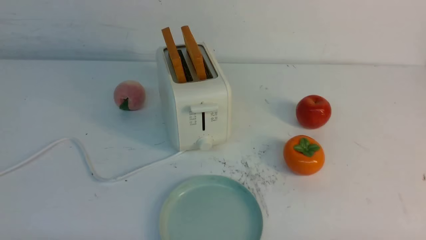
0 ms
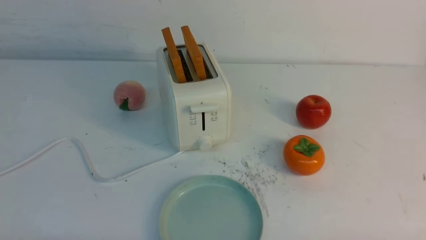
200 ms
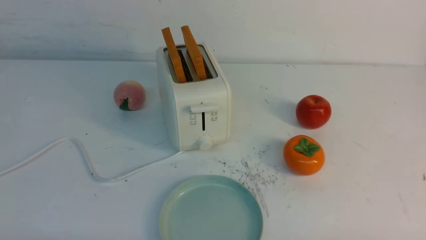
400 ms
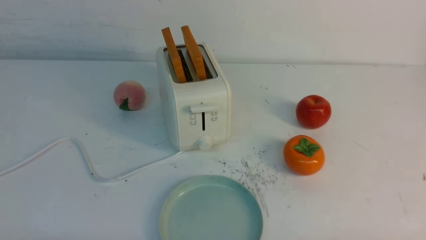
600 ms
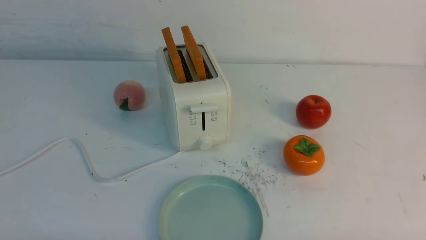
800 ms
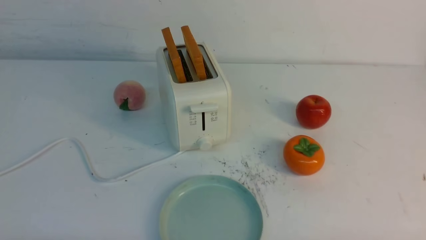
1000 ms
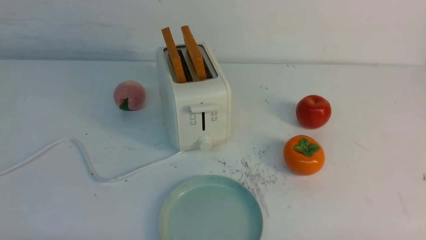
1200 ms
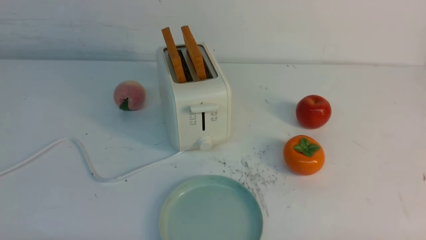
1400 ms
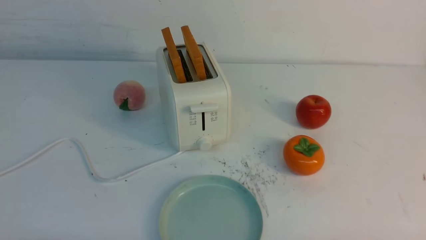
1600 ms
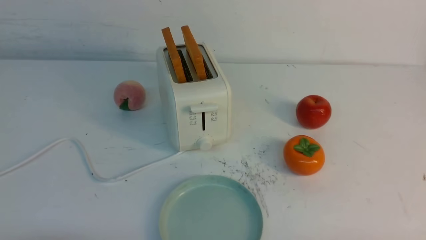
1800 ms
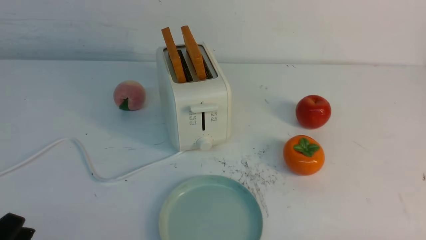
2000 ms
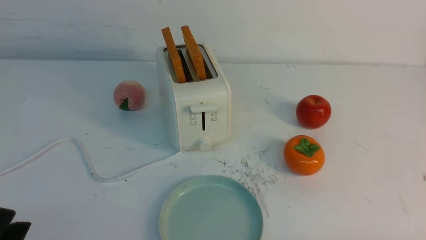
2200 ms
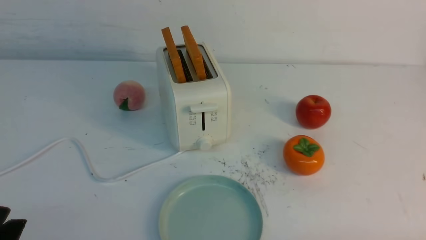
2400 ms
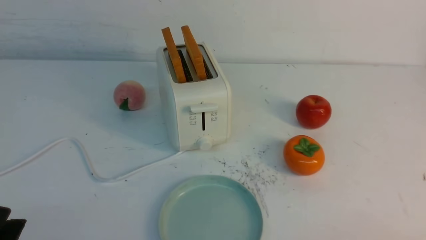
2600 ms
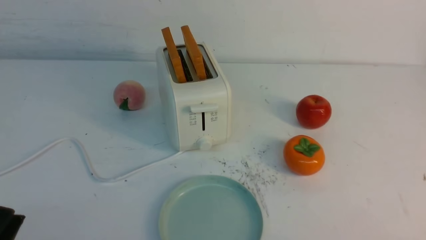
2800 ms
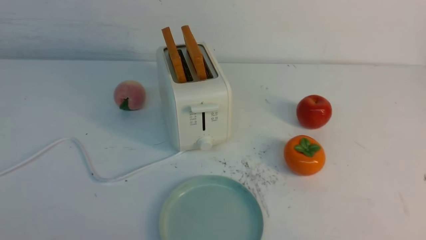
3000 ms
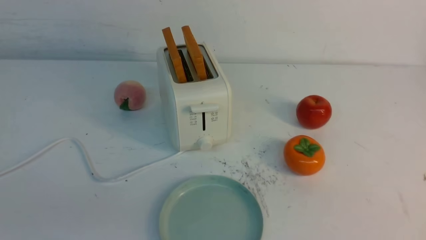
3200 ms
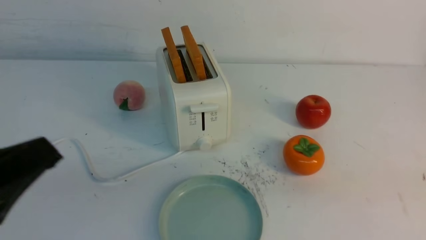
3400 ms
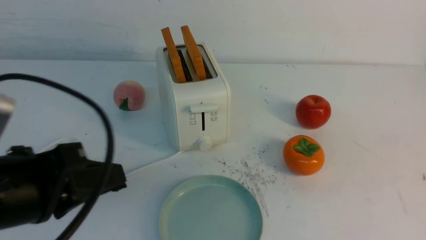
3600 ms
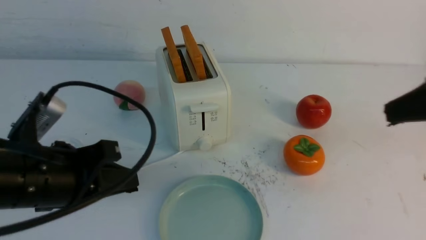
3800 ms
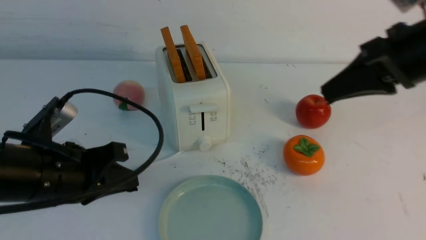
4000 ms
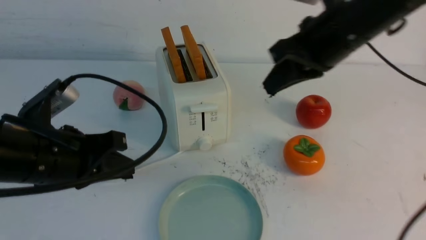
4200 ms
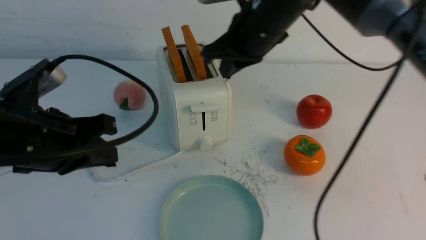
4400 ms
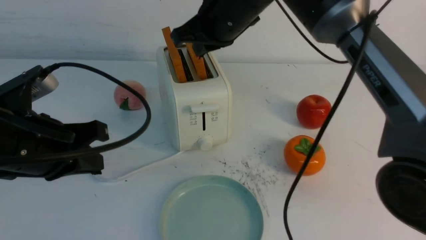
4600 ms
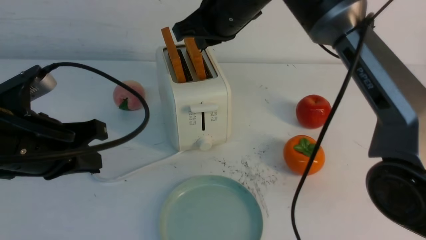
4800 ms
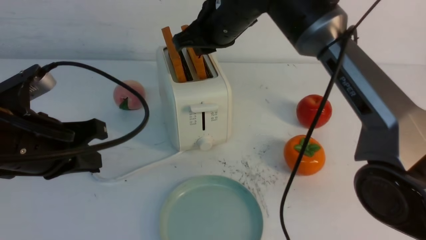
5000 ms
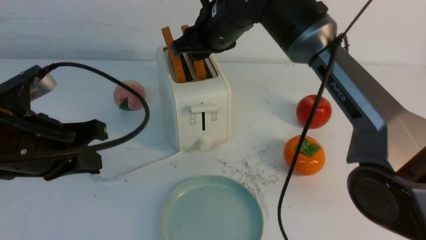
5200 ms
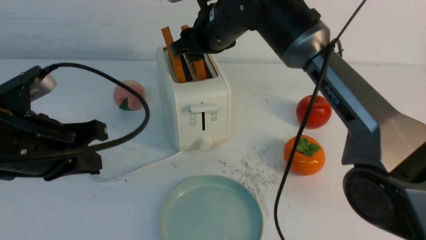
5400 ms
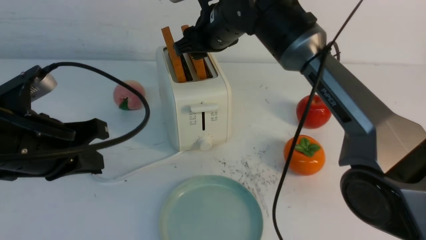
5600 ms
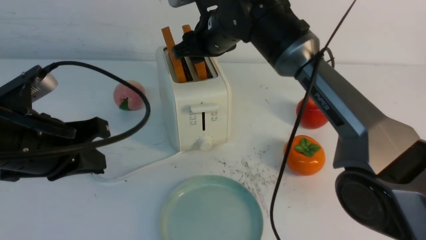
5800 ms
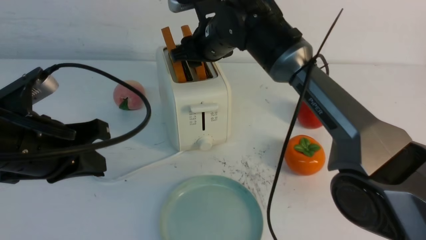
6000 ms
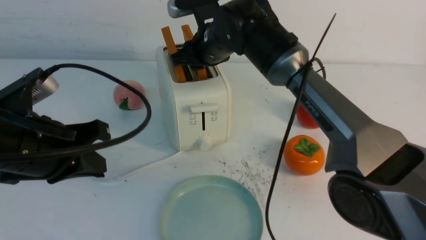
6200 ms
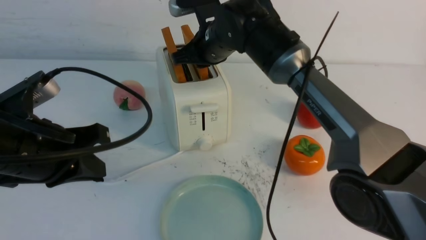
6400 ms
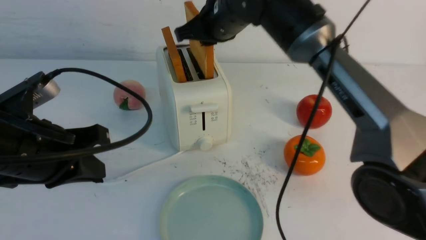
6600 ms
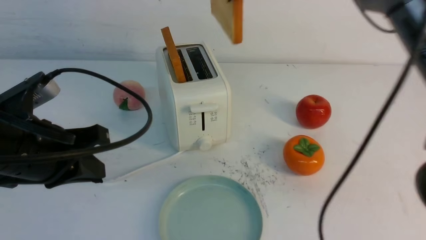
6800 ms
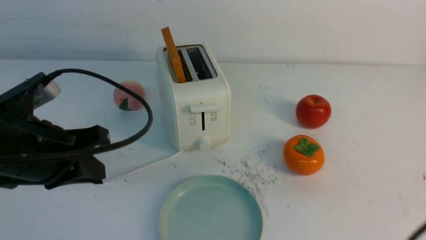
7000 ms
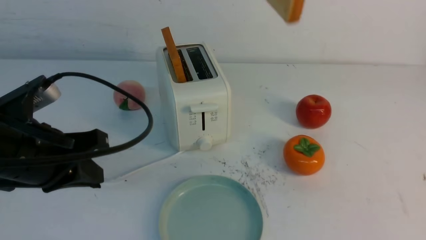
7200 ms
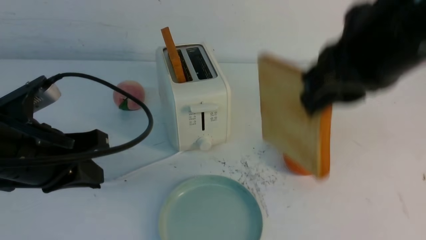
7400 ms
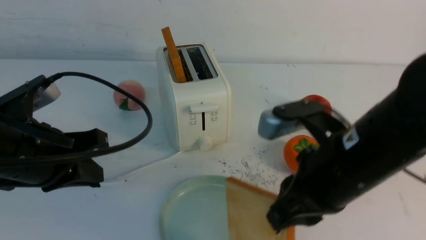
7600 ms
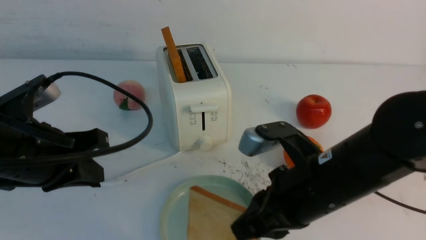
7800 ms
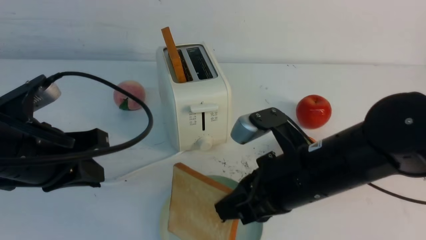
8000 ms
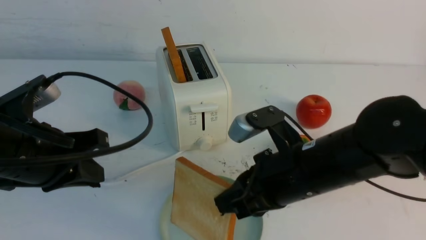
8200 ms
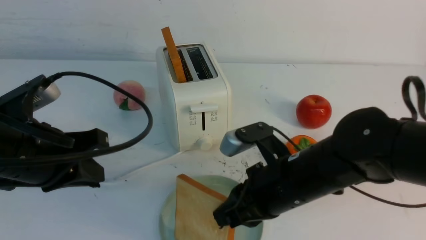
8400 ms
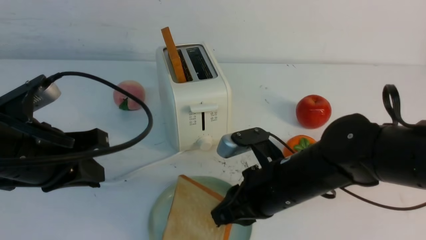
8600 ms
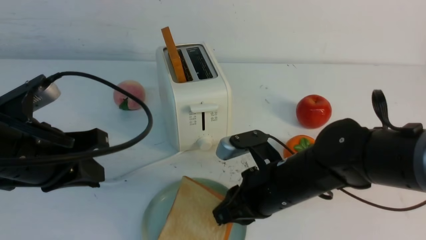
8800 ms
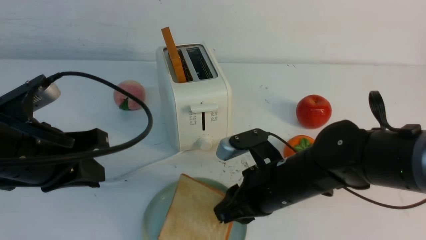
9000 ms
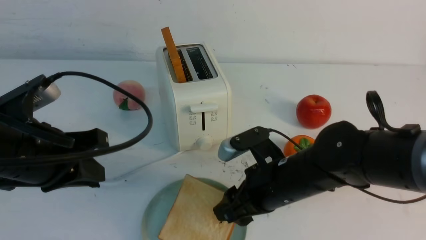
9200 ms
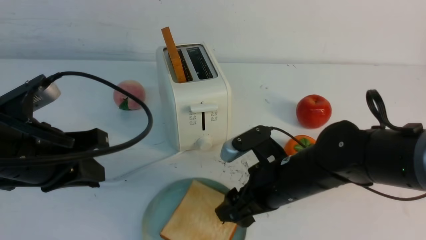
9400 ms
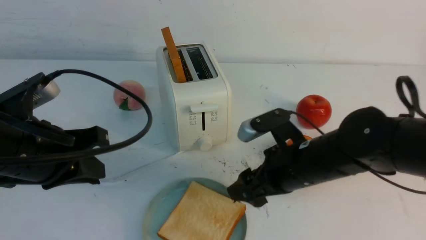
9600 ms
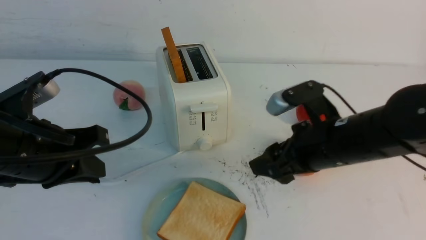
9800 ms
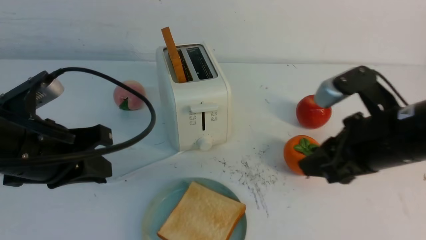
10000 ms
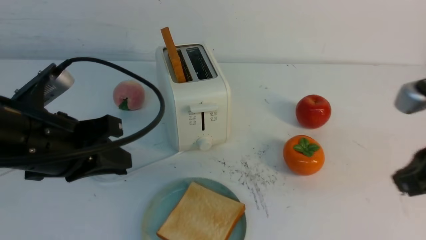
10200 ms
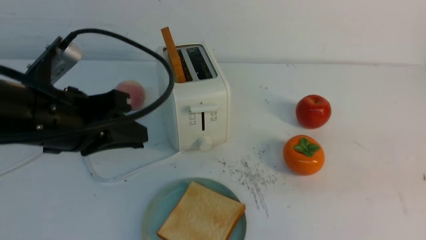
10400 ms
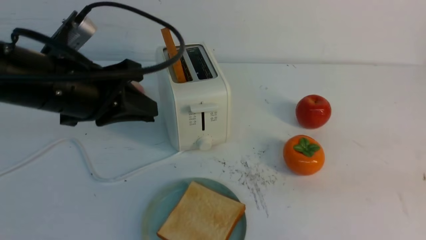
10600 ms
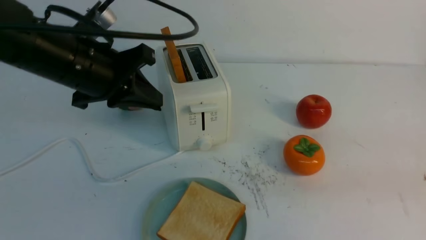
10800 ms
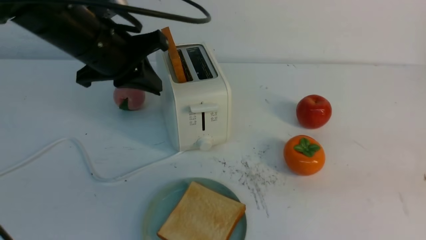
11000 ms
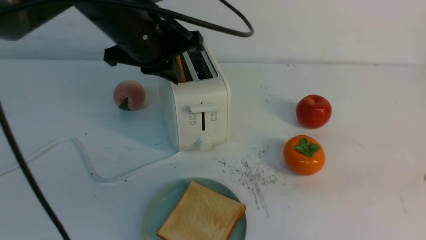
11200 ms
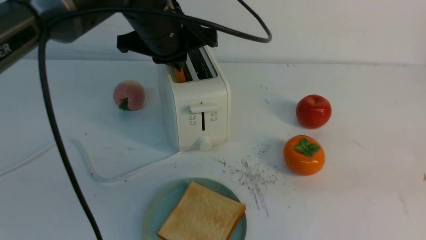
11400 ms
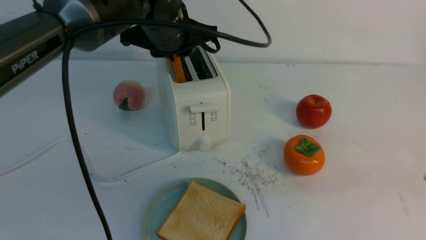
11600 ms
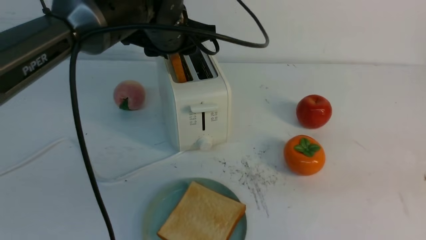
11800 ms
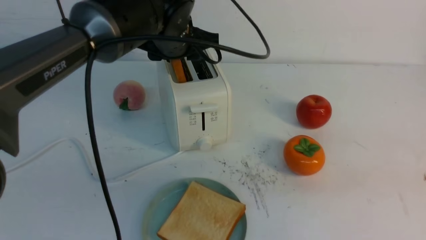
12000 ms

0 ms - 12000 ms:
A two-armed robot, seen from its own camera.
Task of the whole recording: take toasted bread from bread machine on white table place on plate.
Step, 0 ms - 6400 ms: use the right arm to take out a slice of bread.
Step, 6800 ms - 9400 ms: use the right arm to put a slice of bread into the plate.
3000 ms - 4400 ms: The right gripper is displaced forward, to the left and upward by some 40 cm, and closes up; the left gripper heads forward, covering some 15 cm.
4400 ms - 6000 ms: The right gripper goes some 10 cm forward, downward and to the left, and opens up.
6000 ms - 7600 ms: The right gripper heads backward and to the right, covering about 25 cm, and closes up.
7600 ms - 9000 ms: The right gripper goes approximately 15 cm downward and forward.
9000 ms - 10400 ms: The right gripper travels to the right, upward and backward by about 25 cm, and closes its fingers.
10400 ms - 12000 ms: The left gripper moves forward and to the right, roughly 20 cm, and opens up.

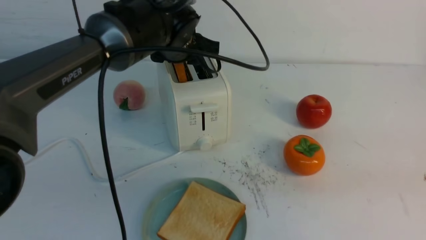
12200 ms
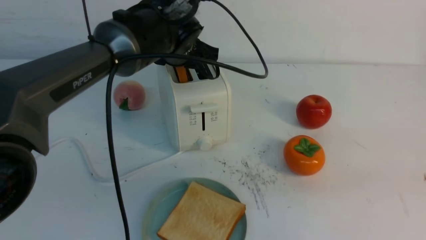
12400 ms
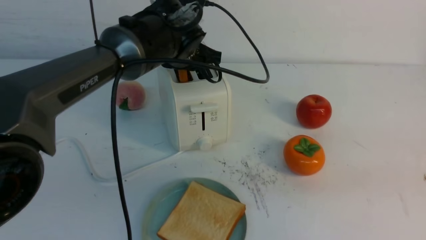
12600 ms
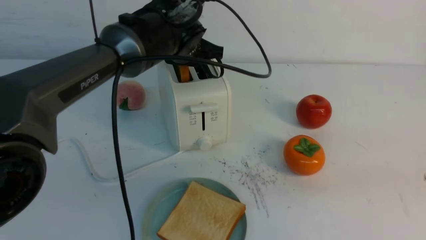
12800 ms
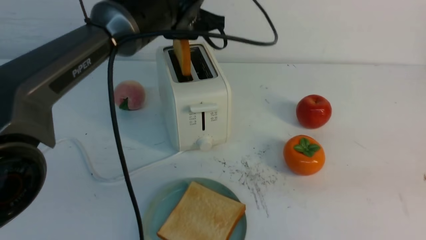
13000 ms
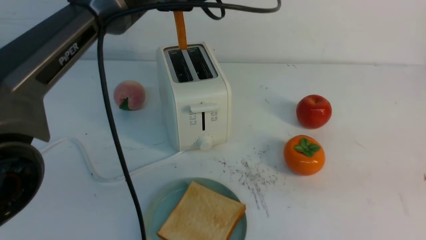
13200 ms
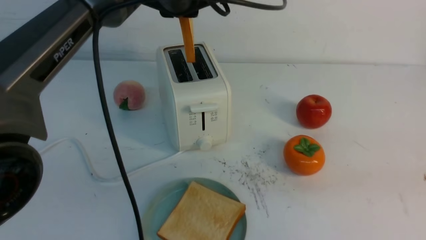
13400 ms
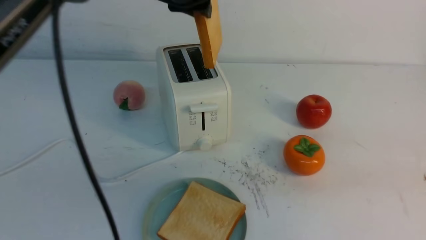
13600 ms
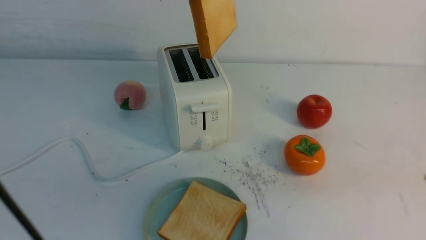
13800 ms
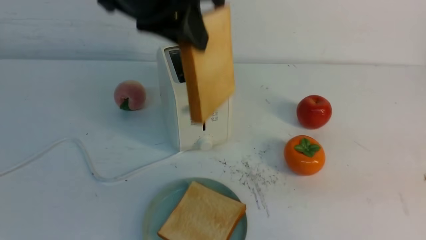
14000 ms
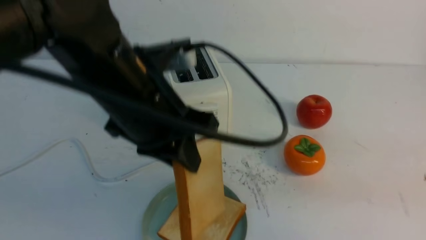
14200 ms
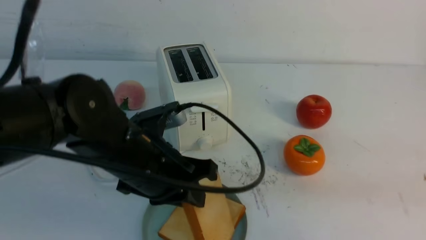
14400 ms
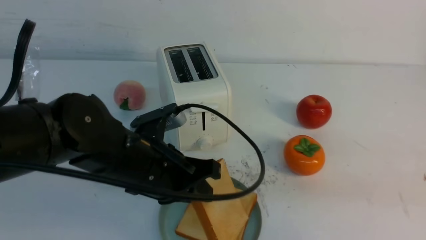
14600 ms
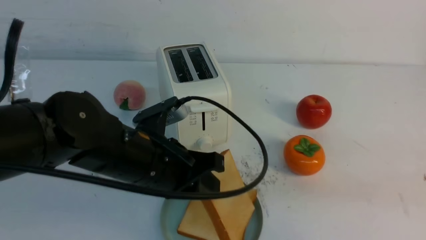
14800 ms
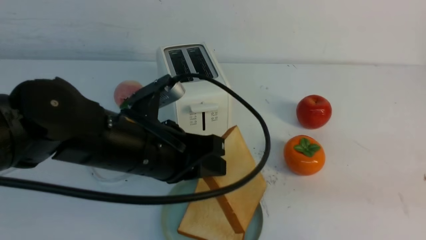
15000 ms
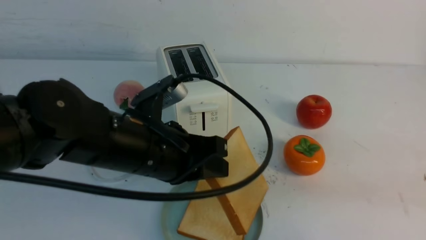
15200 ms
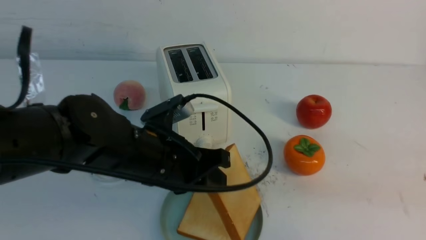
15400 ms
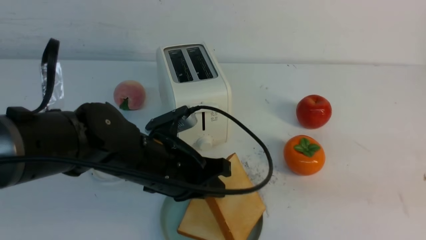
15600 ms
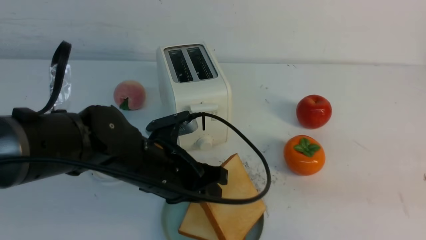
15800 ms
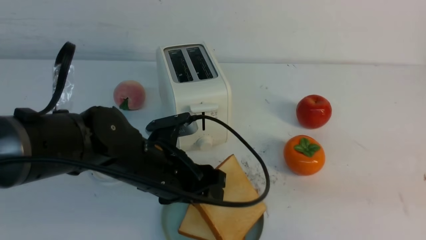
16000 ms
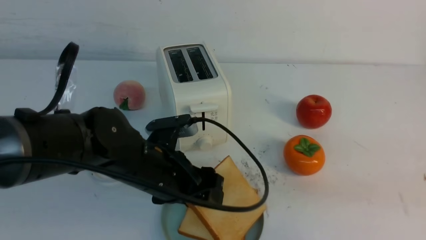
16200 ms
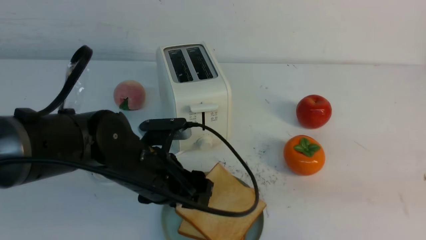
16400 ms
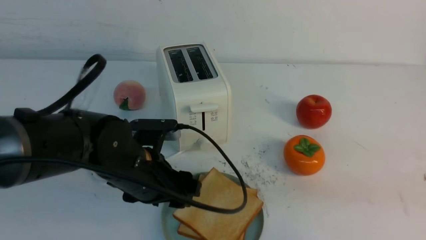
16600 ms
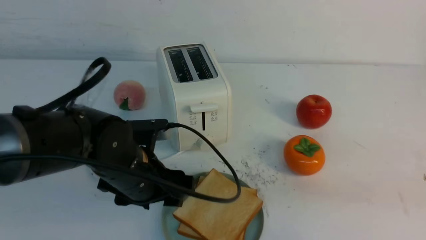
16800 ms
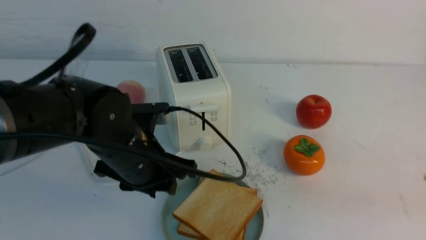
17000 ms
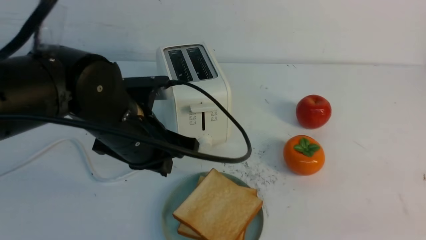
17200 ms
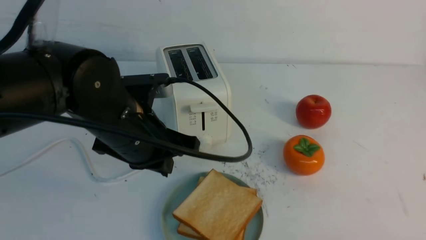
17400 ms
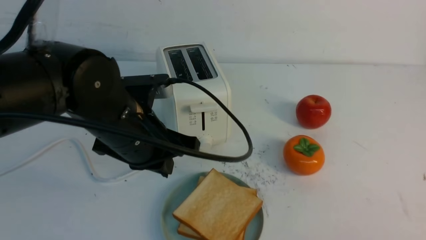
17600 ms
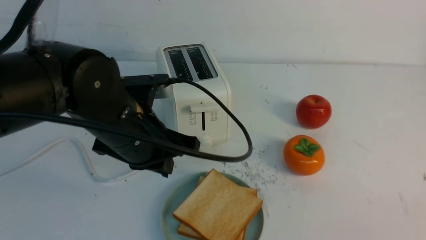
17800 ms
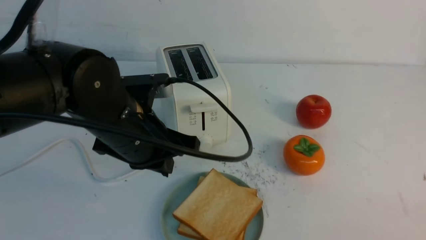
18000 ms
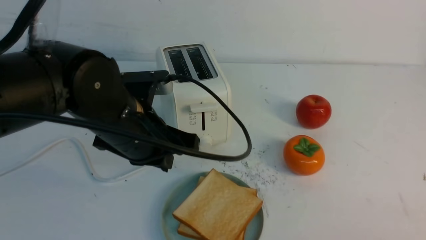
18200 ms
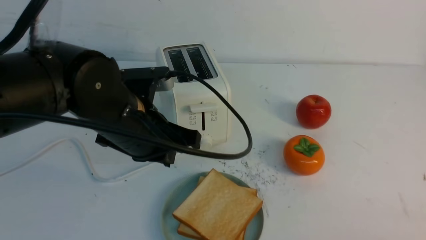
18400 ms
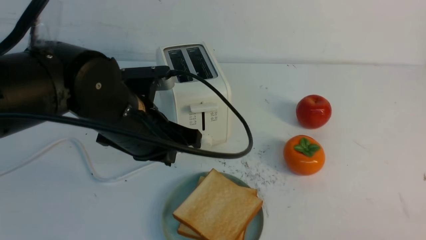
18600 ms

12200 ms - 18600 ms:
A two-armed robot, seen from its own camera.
Task of the whole recording: take toasted bread from bread machine on white table place on plate.
Step, 13400 ms - 16800 ms: use the left arm to put a slice of bread into the empty plate.
12200 ms - 13800 ms: The left gripper goes some 20 cm upward and backward, and closes its fingers.
13800 ms - 15400 ms: The left gripper is displaced downward by approximately 20 cm.
15400 ms - 17000 ms: The left gripper opens and closes again.
17000 ms - 18600 ms: The right gripper goes roughly 10 cm downward and backward. The left gripper closes up.
